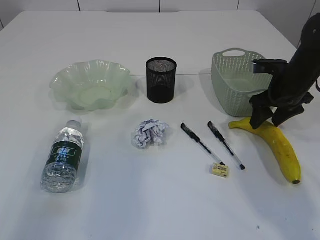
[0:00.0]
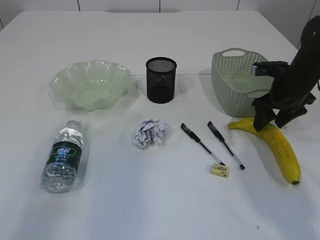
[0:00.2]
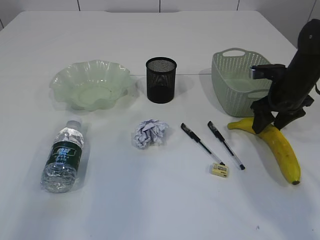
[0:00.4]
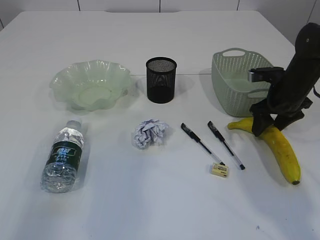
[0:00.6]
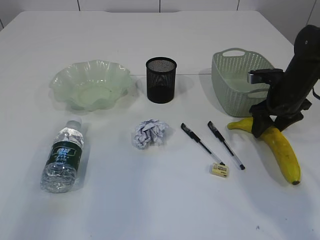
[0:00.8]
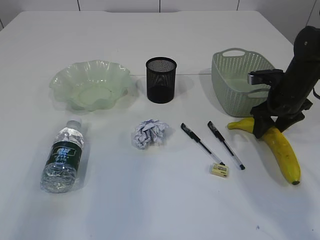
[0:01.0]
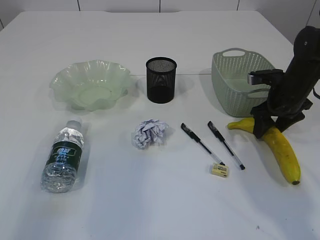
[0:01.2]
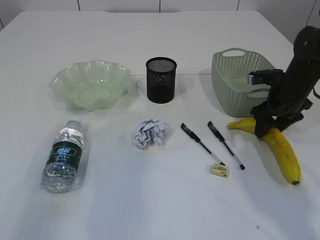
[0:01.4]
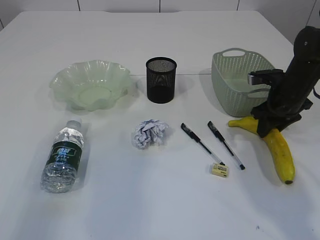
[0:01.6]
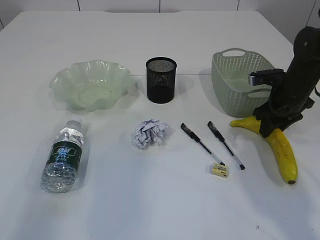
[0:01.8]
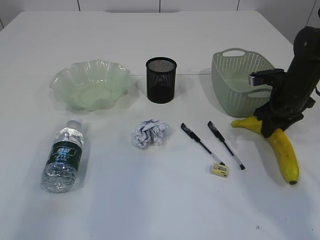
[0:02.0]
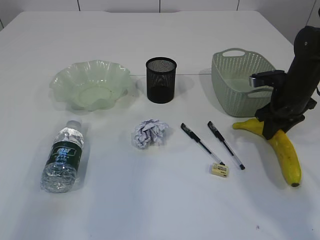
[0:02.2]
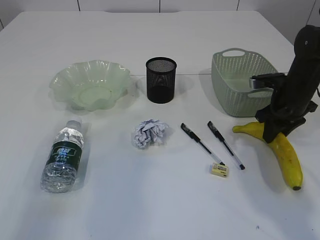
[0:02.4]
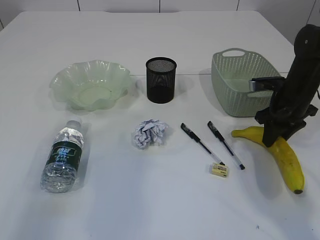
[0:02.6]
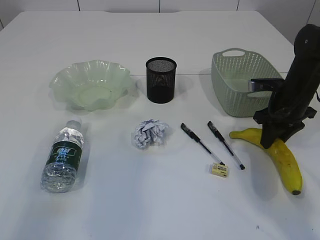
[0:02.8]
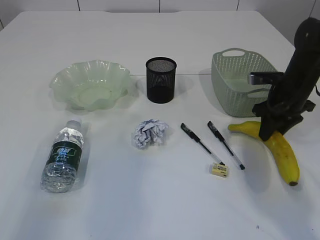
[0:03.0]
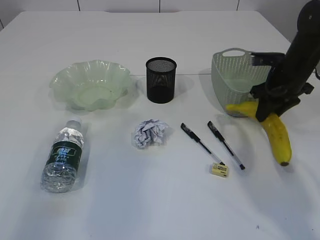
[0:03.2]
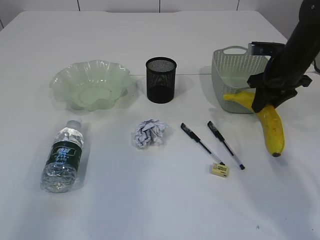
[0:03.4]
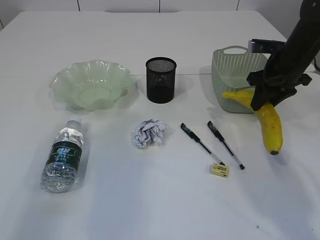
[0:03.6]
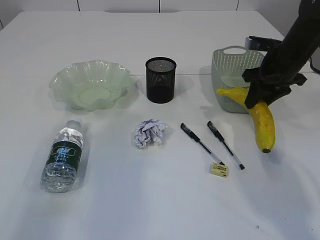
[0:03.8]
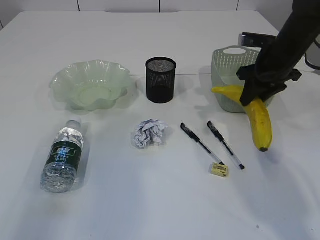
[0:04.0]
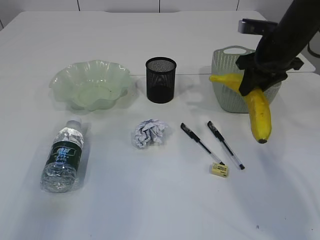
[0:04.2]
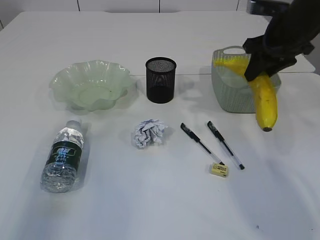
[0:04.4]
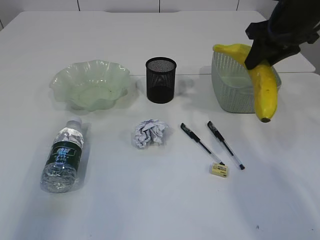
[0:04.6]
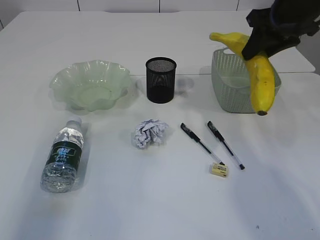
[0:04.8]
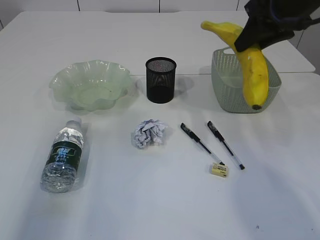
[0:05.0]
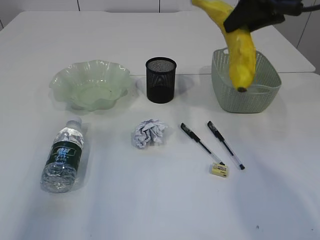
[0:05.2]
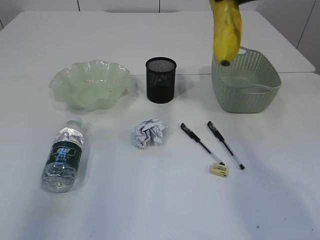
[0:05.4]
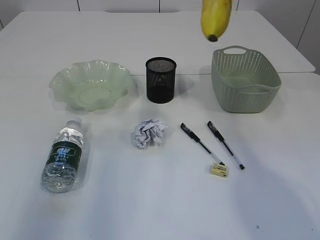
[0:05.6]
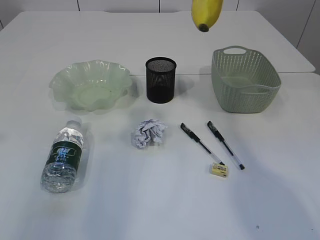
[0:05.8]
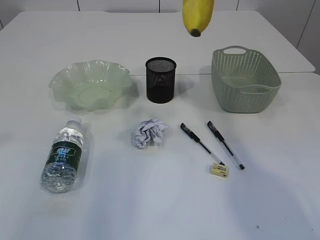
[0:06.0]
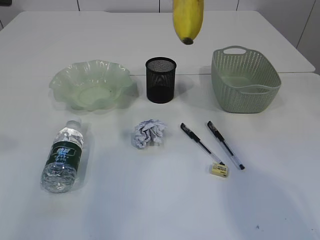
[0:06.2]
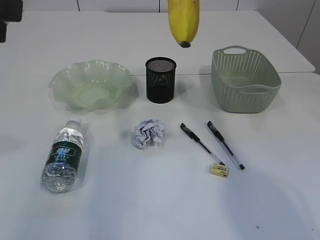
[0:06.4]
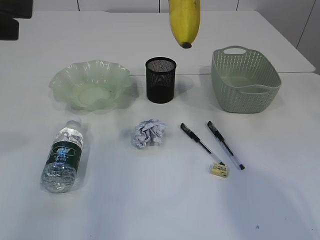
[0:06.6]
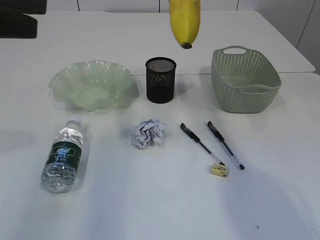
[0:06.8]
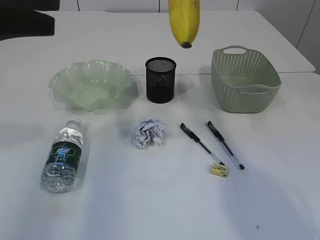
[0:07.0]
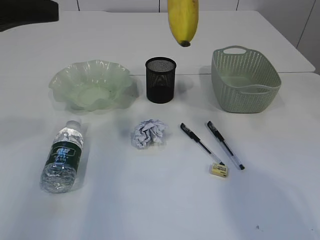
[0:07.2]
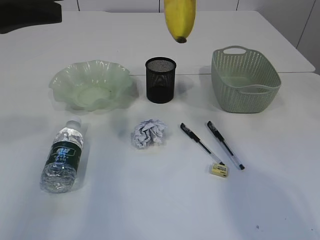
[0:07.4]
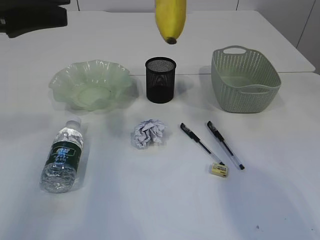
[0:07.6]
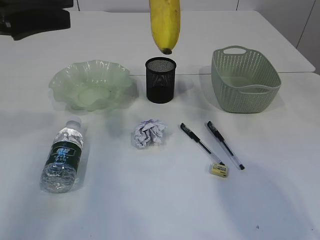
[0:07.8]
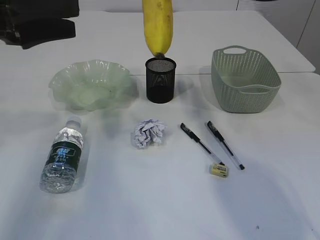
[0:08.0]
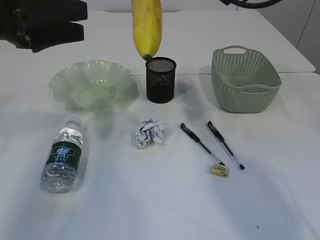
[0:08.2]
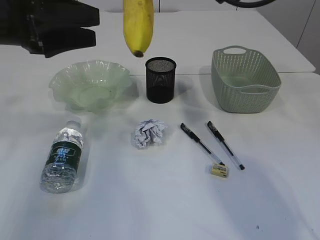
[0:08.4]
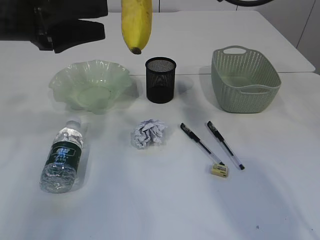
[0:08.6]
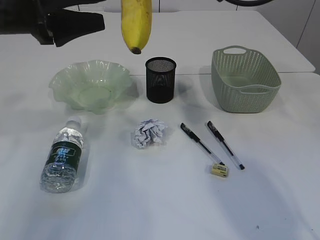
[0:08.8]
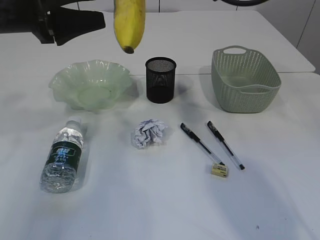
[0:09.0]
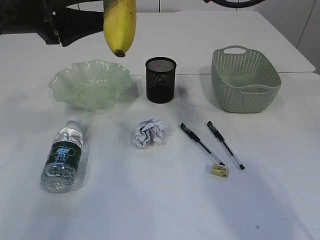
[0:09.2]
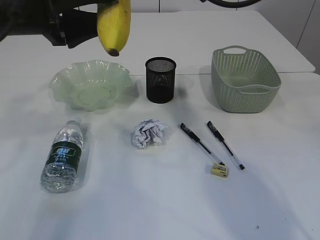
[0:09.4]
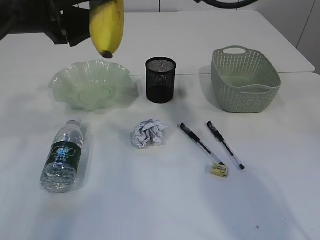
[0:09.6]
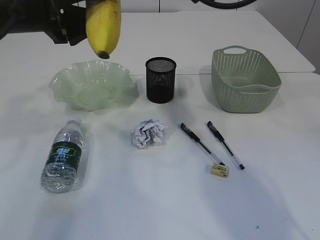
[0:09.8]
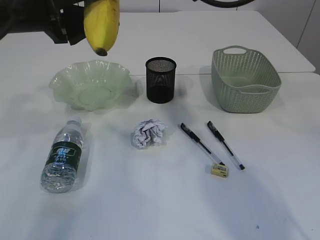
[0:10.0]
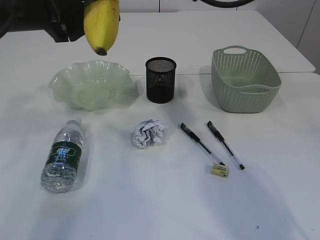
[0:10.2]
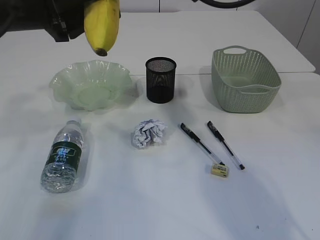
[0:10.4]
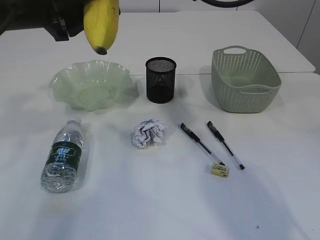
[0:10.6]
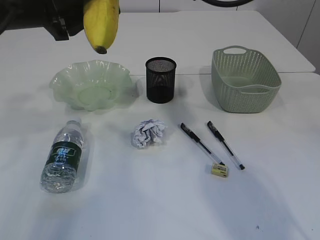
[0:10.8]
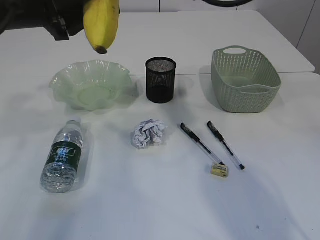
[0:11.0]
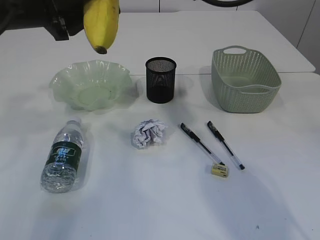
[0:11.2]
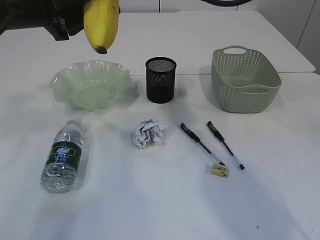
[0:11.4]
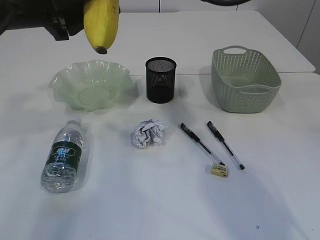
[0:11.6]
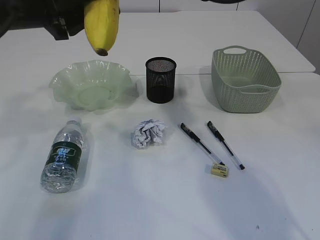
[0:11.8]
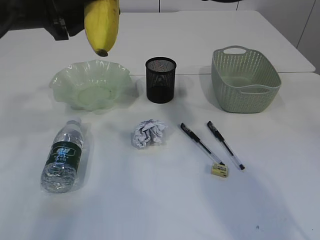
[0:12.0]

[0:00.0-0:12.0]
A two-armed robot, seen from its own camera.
0:00.0 to 0:01.6: The right gripper closes up.
0:01.6 to 0:03.0: The grippers move only a little.
0:03.0 to 0:04.4: The right gripper heads upward, covering some 10 cm.
0:04.4 to 0:06.0: The left gripper moves to the right, approximately 5 cm, while the right gripper travels upward and to the left by some 15 cm.
0:06.0 to 0:07.6: The left gripper travels forward and downward by some 10 cm.
0:07.6 to 0:09.0: The left gripper shifts by roughly 5 cm, while the right gripper ends up some 5 cm from where it was.
0:09.0 to 0:10.4: The left gripper closes.
0:10.4 to 0:12.0: The two grippers keep their place.

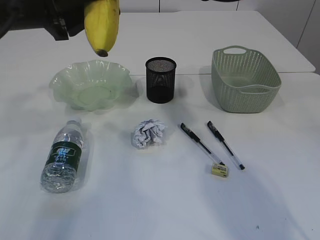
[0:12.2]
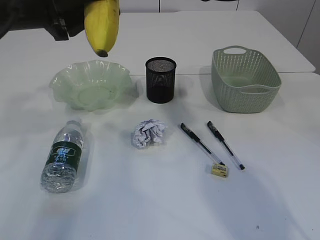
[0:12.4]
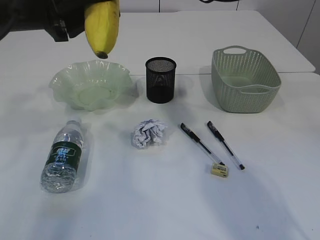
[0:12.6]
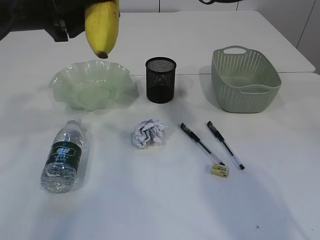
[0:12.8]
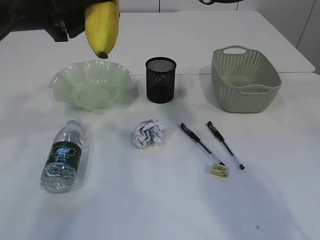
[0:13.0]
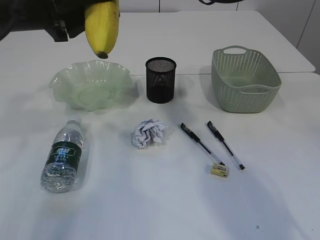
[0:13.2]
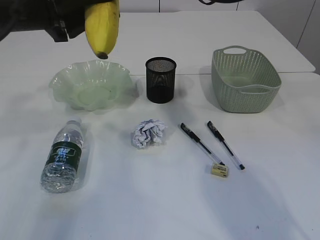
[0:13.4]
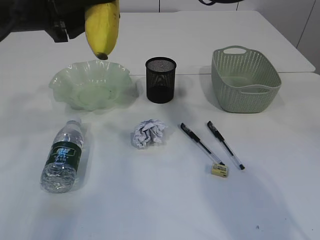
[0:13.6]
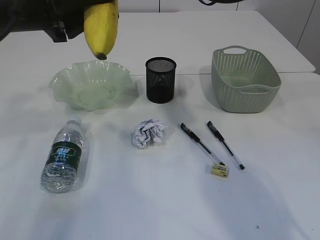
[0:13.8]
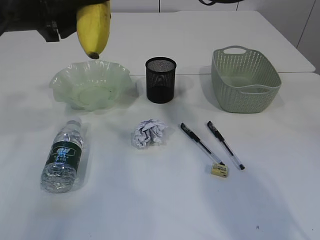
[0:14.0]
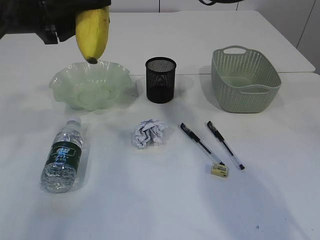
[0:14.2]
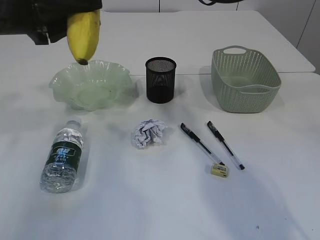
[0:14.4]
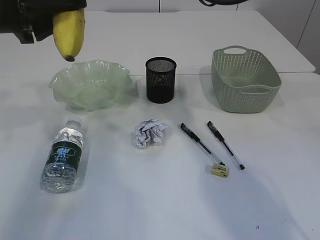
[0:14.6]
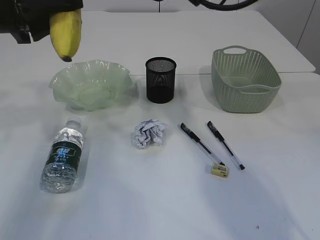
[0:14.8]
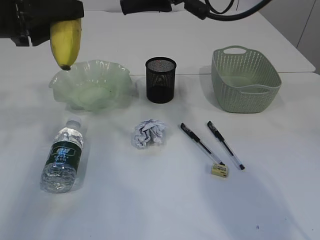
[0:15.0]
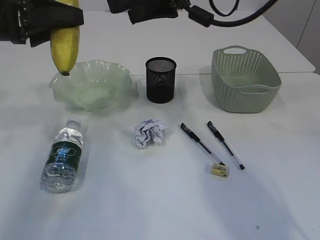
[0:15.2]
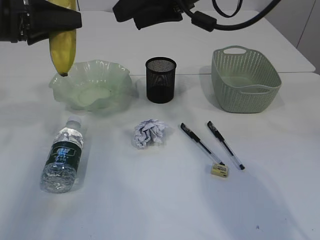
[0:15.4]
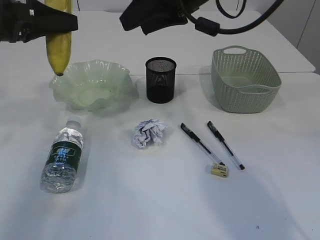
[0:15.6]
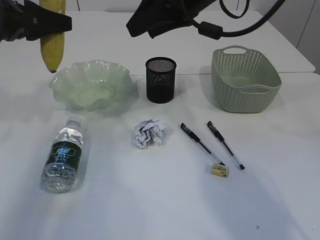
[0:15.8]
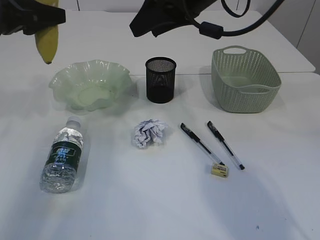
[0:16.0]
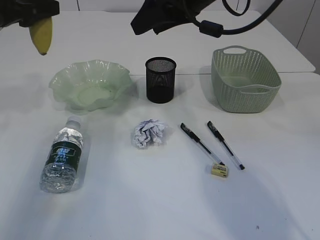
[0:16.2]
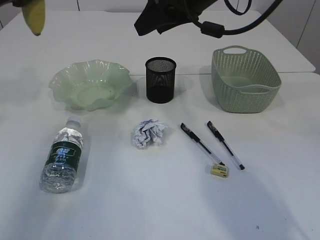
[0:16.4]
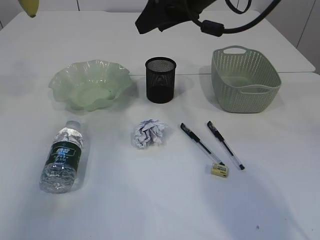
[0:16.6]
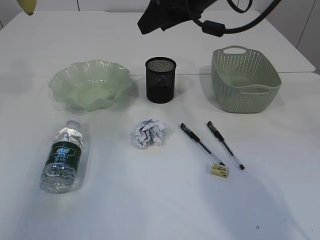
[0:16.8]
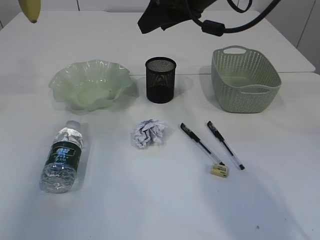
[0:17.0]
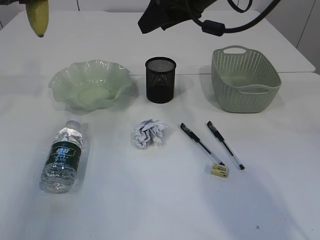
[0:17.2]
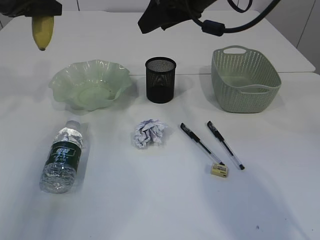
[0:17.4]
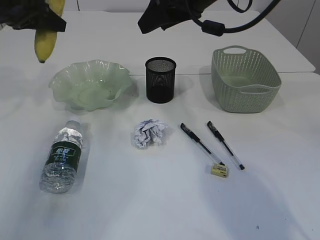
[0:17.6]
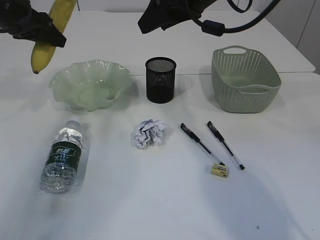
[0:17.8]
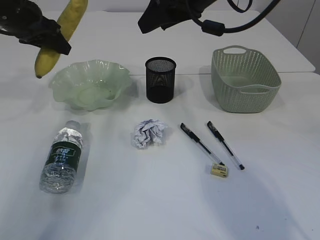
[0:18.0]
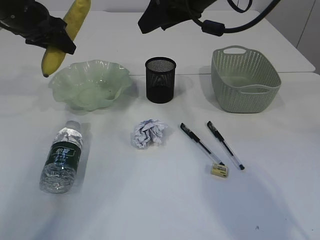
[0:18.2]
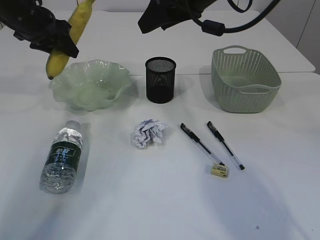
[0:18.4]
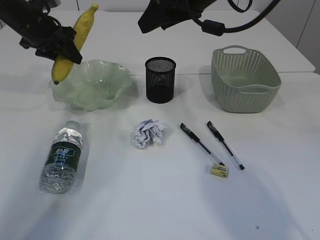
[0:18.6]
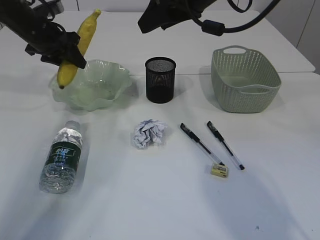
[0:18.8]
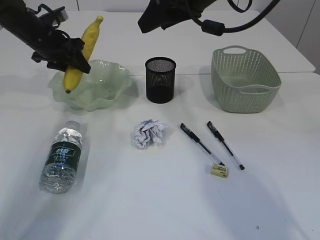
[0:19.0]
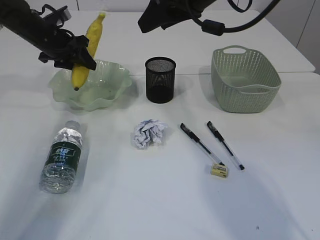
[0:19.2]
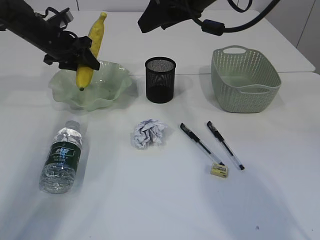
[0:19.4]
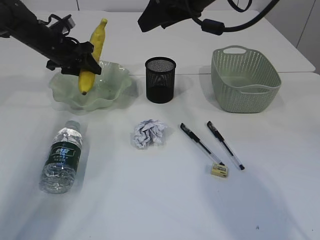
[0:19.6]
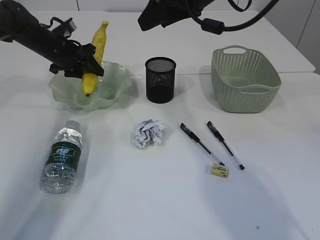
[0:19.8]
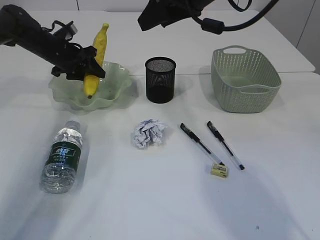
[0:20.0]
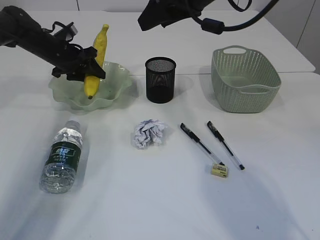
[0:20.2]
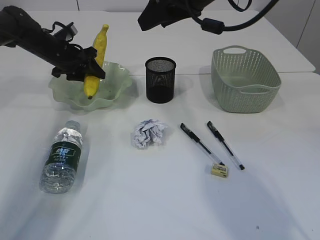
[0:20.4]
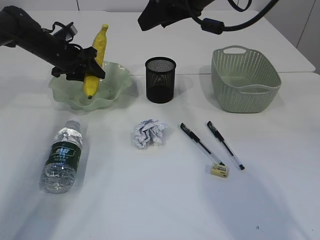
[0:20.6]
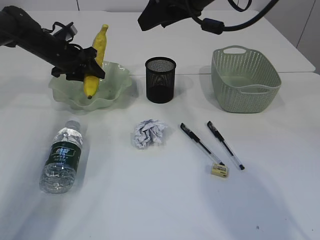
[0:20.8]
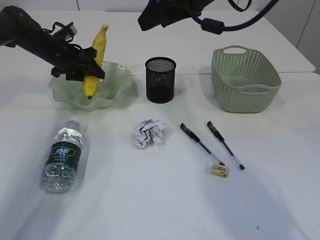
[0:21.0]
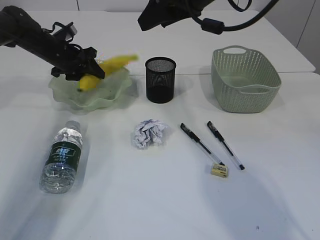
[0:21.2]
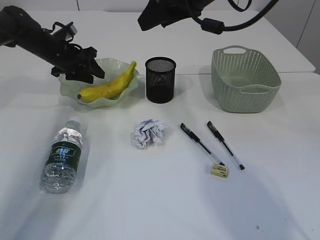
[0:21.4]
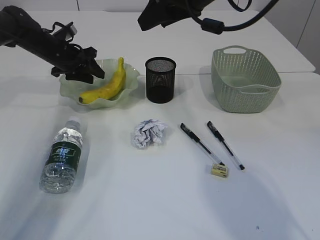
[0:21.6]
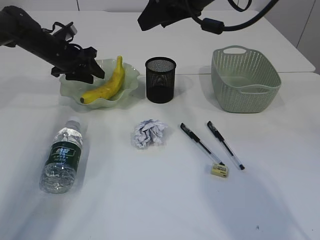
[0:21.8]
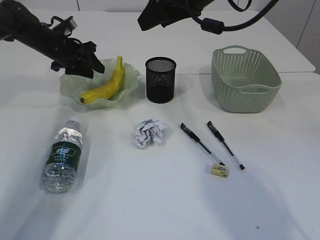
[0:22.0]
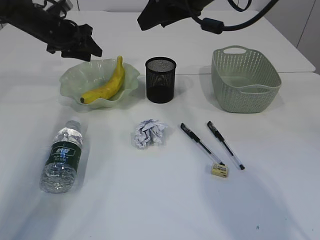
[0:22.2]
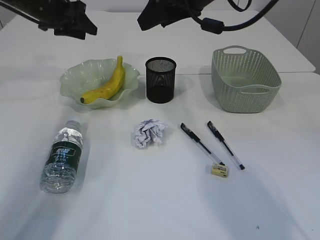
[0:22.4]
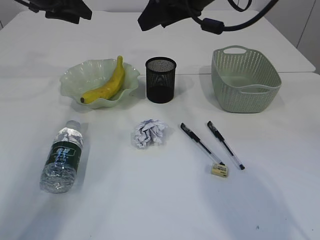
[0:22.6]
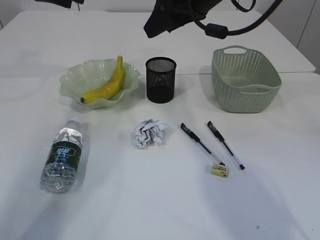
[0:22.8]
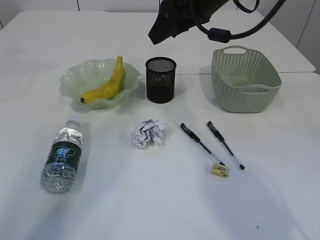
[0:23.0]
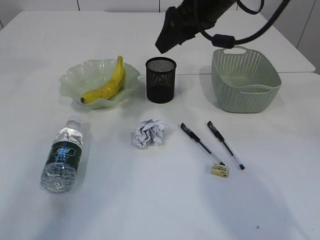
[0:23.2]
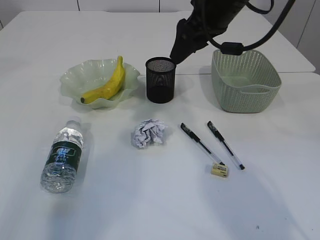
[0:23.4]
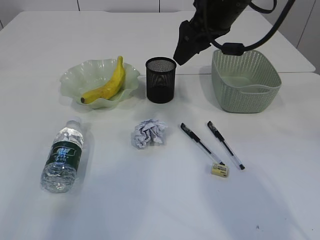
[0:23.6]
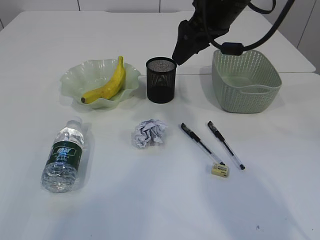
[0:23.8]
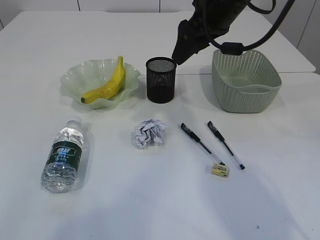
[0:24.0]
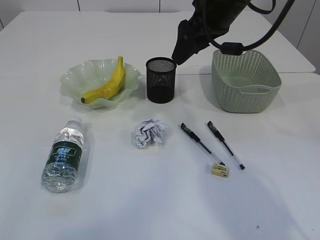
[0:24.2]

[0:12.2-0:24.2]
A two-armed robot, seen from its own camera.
Step, 0:12.2 to 0:15.0: Hand over the banana.
Step, 0:15.2 to 0:22.2: Place the banana in the plate.
0:12.2 to 0:13.8: There are only small adjustments of the grippers.
0:13.8 to 0:15.2: The left gripper goes approximately 5 cm to the left.
0:15.2 to 0:16.6: The left gripper moves forward, about 5 cm.
0:16.6 to 0:18.2: The left gripper shifts approximately 10 cm forward and downward.
0:18.2 to 0:19.8: The left gripper is displaced downward and forward by some 15 cm.
0:19.8 to 0:21.2: Both grippers stay put.
0:21.2 to 0:22.6: The left gripper travels upward by some 15 cm.
0:22.6 to 0:24.2: The left gripper shifts approximately 50 cm backward and upward.
